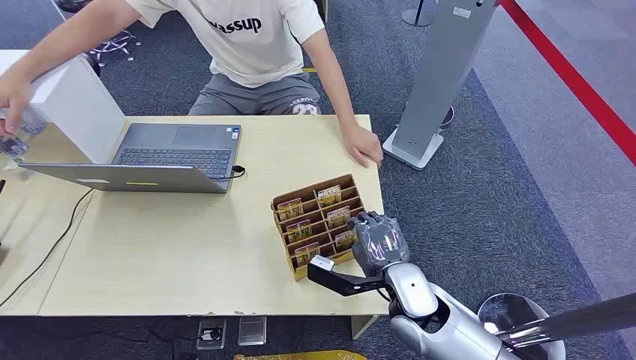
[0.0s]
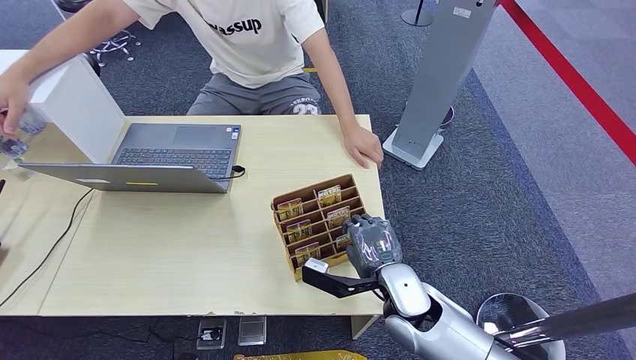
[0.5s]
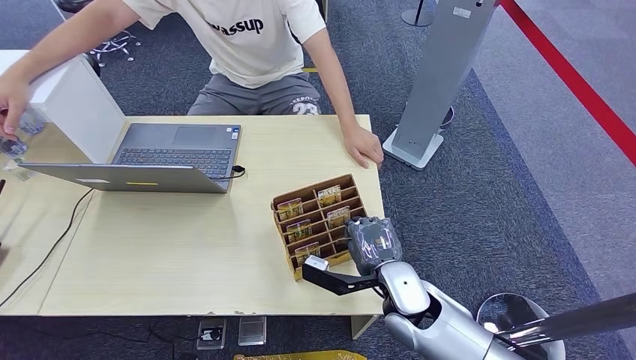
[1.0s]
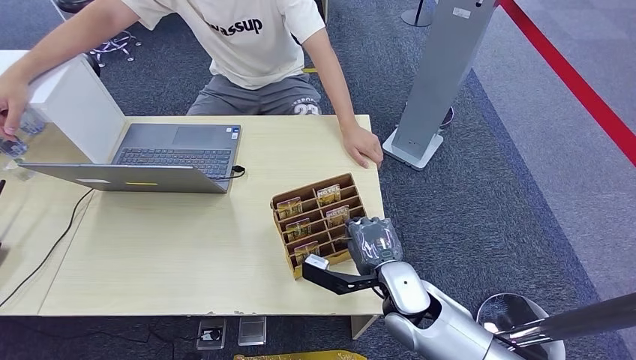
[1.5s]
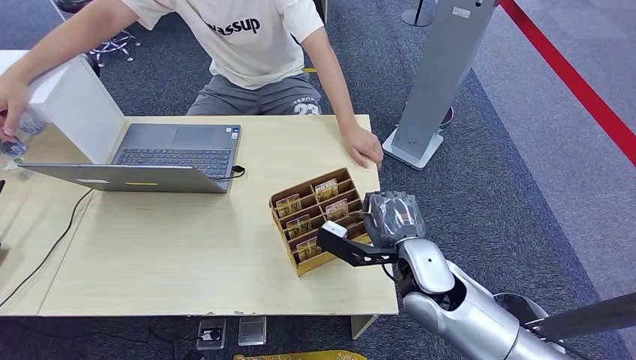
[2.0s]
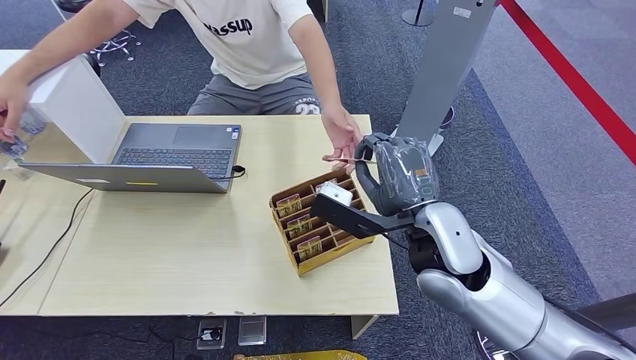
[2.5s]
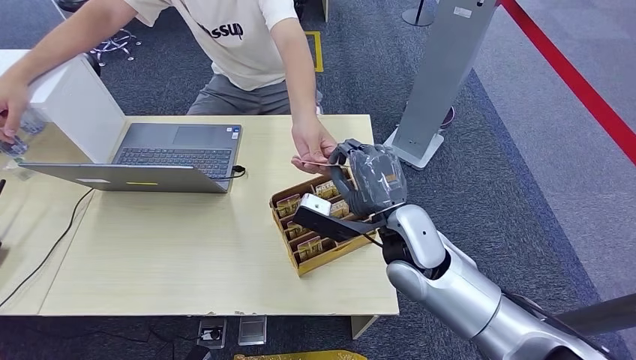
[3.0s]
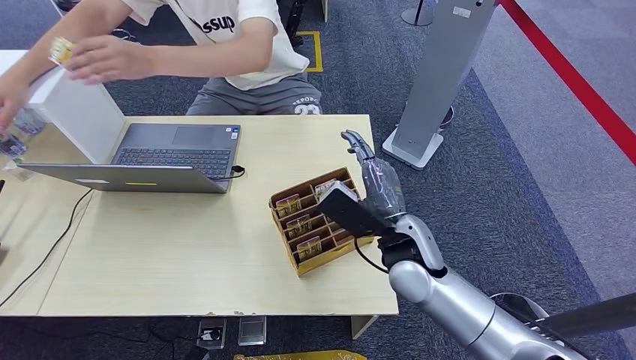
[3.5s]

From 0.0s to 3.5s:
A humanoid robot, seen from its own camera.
Step, from 0.0s to 2.0s: Pick up the key card from the card box.
Step, from 2.5s to 3.5s: Hand the key card to the target.
From 2.0s to 3.5s: The right hand reaches about 10 cm upward, then returns.

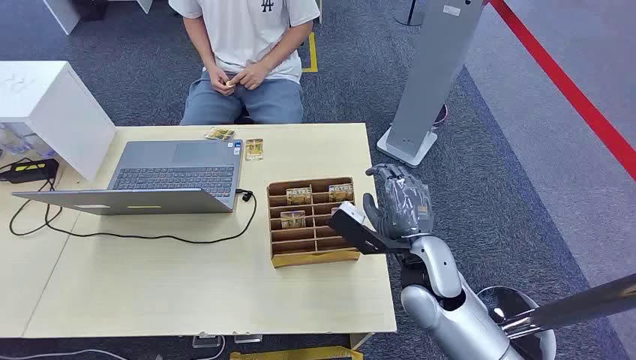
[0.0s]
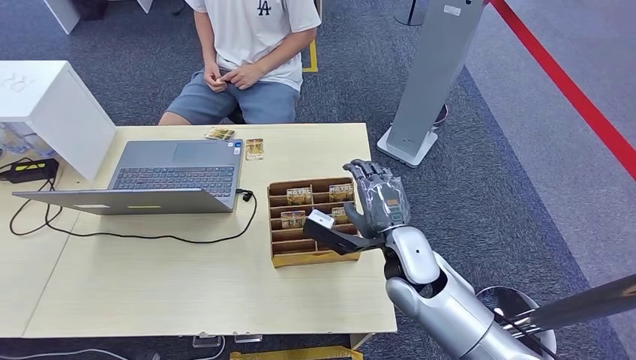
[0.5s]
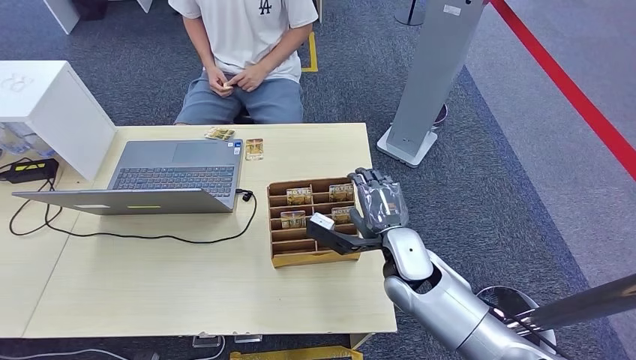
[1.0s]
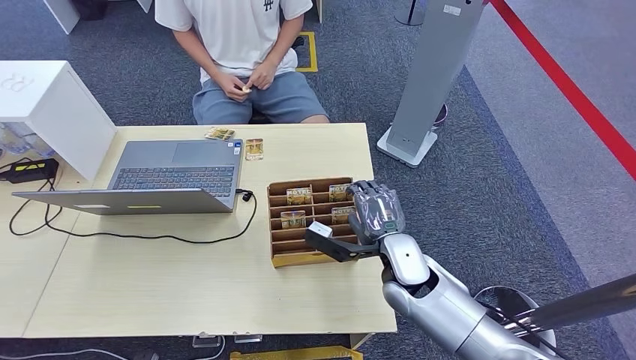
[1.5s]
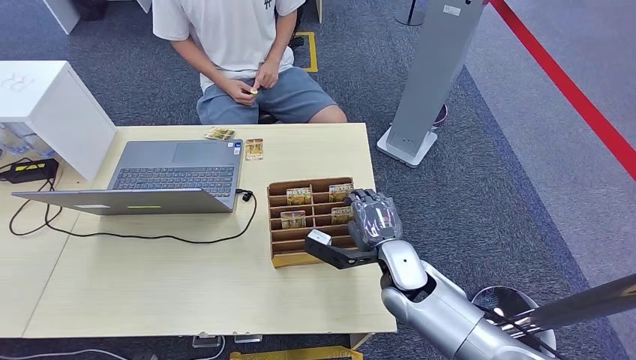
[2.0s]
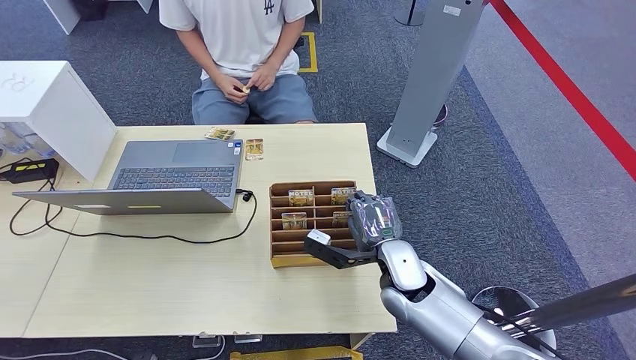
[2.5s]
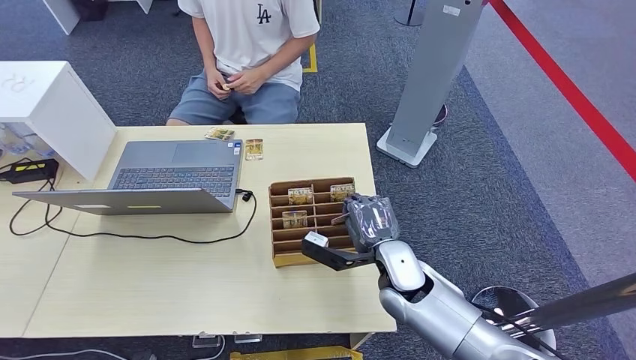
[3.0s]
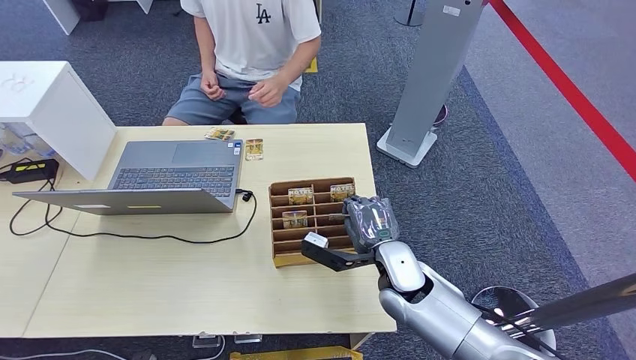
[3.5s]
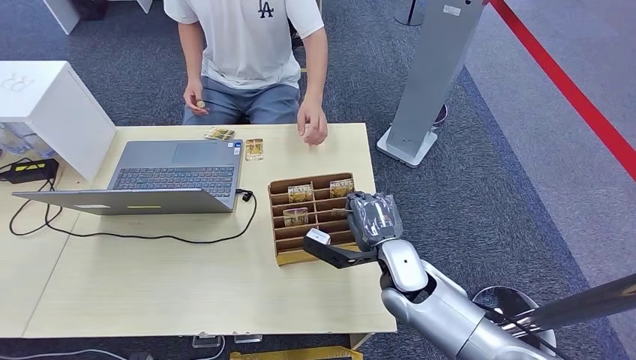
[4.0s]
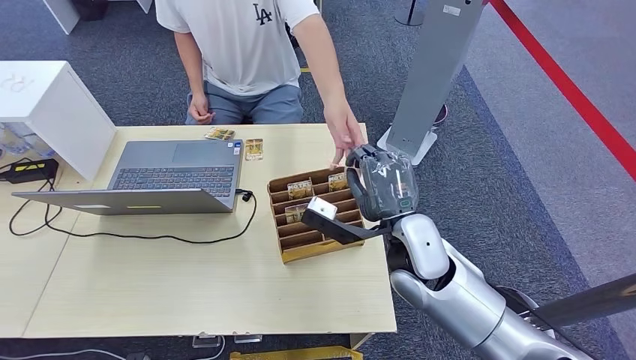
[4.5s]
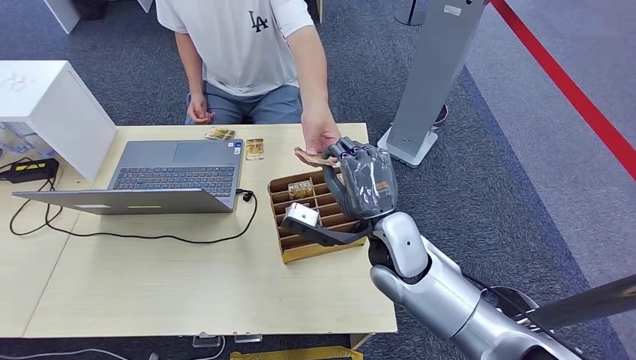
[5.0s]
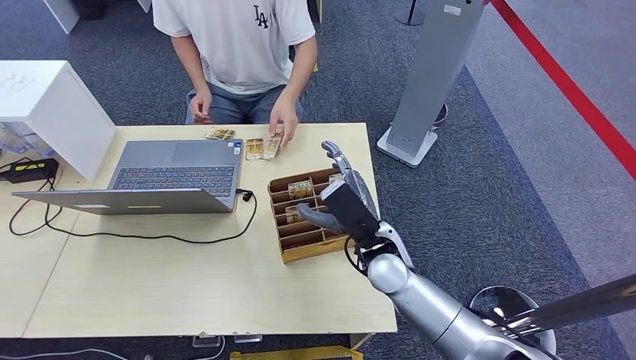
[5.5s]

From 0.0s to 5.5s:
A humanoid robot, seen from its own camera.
Step, from 0.0s to 3.5s: Pick up the key card from the card box.
Step, from 4.0s to 5.5s: Hand the key card to the target.
From 2.0s to 3.5s: Neither hand changes place.

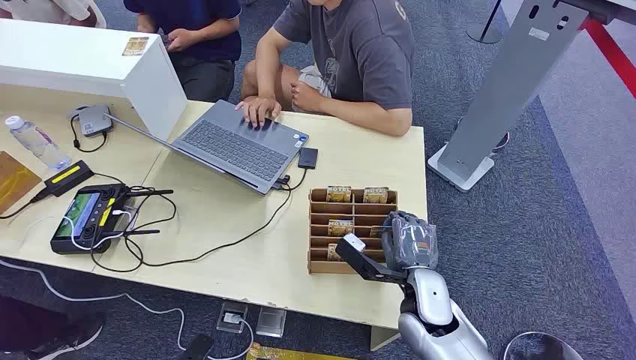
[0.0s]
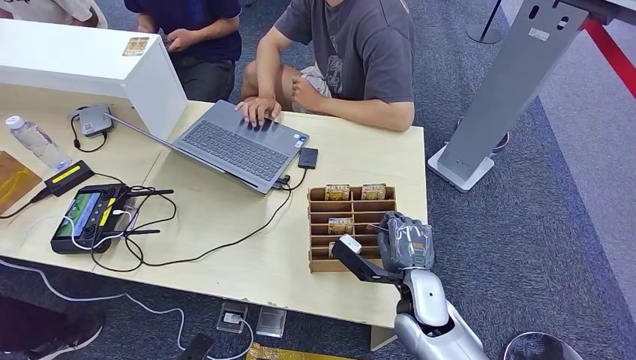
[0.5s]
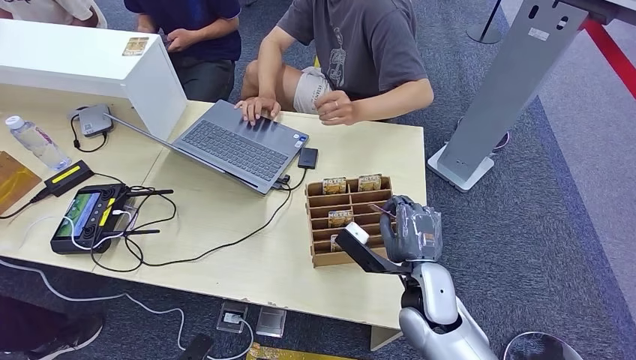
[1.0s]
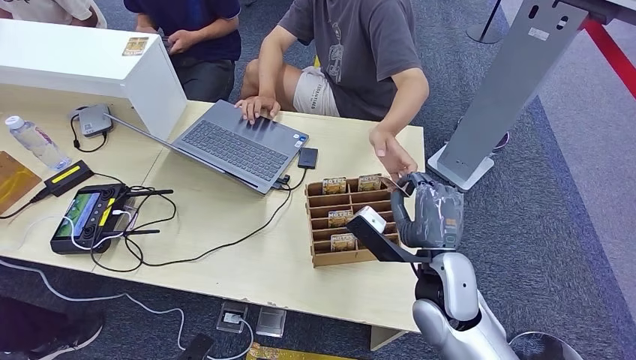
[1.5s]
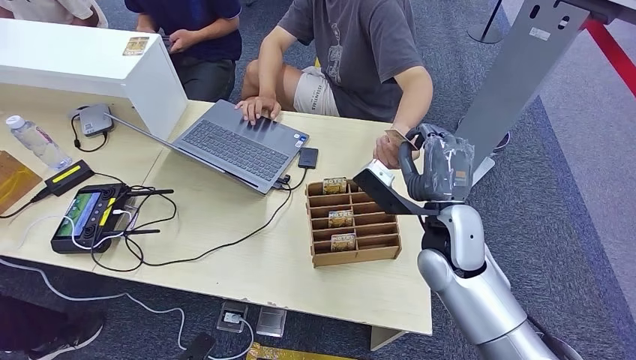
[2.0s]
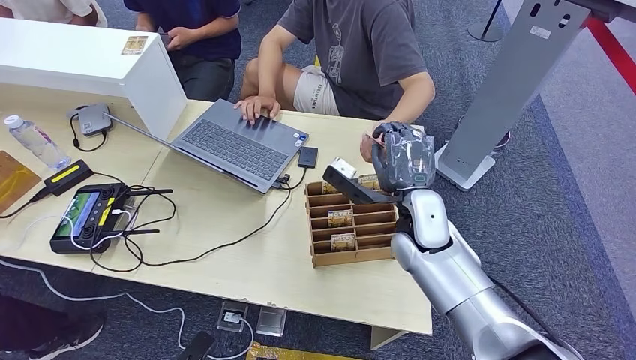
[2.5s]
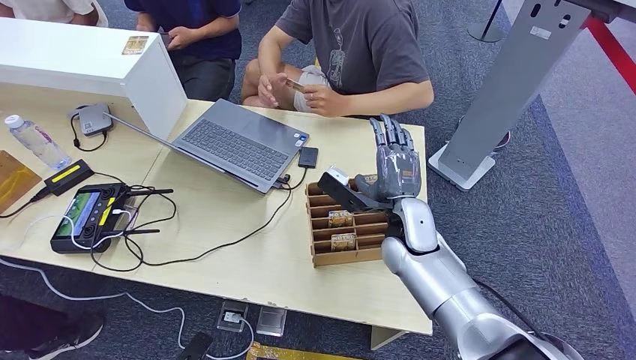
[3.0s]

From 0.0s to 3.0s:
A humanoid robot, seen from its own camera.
Step, from 0.0s to 1.0s: Pick up the key card from the card box.
Step, from 1.5s to 3.0s: Hand the key card to the target.
From 1.5s to 3.0s: The right hand is displaced forward and to the left by about 10 cm.

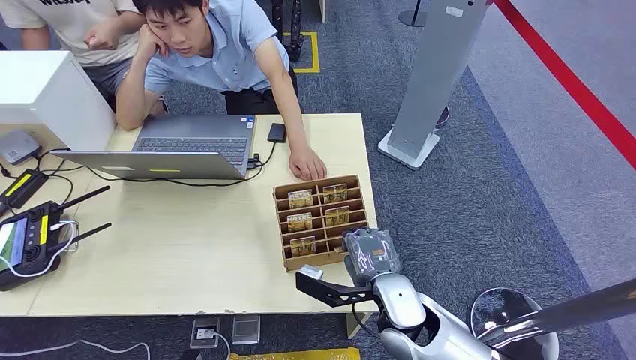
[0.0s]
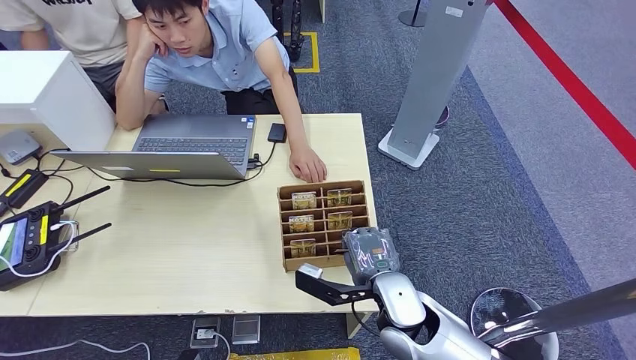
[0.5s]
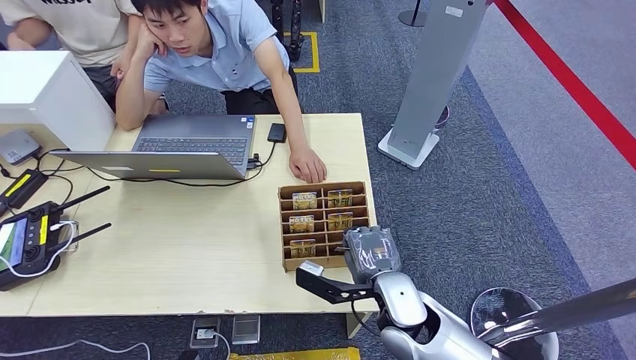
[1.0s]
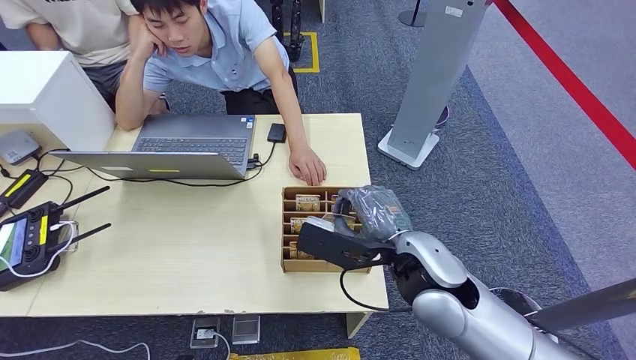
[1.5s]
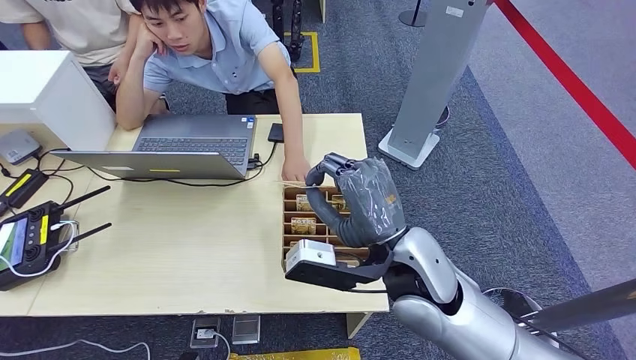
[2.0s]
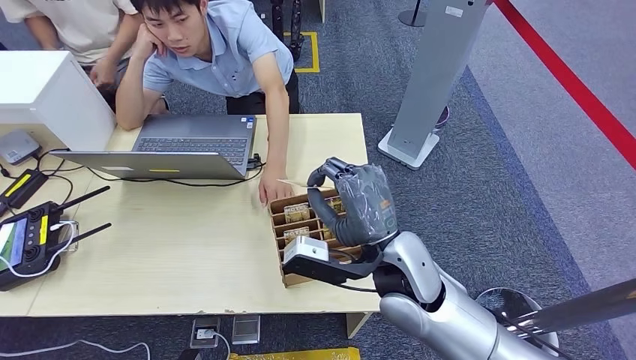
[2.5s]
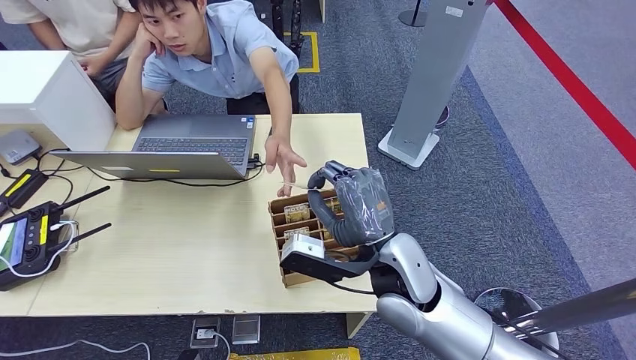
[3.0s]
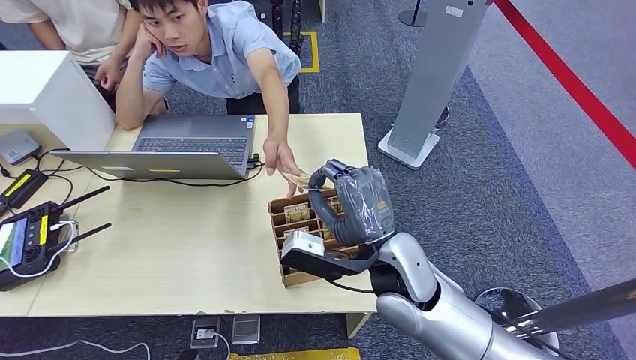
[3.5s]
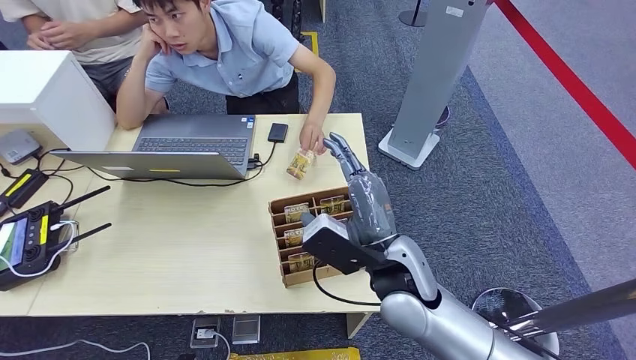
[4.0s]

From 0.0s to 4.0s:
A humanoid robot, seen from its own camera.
Step, from 0.0s to 1.5s: Pick up the key card from the card box.
Step, from 2.5s to 4.0s: Hand the key card to the target.
From 2.0s to 4.0s: The hands make only small movements.
